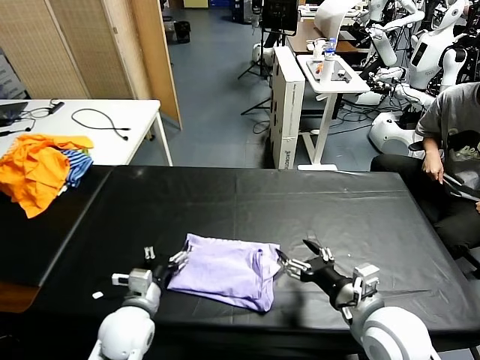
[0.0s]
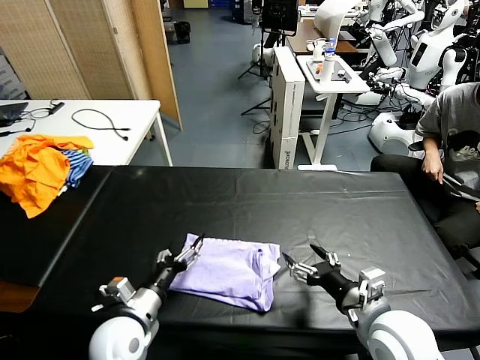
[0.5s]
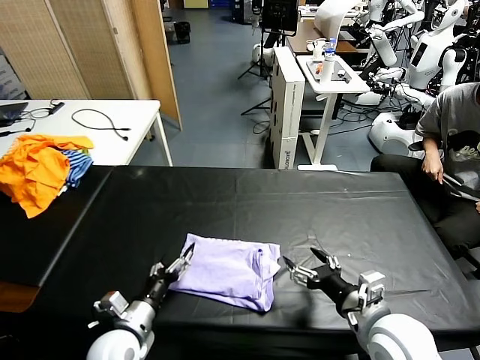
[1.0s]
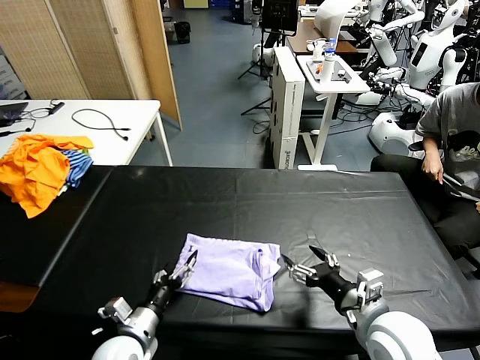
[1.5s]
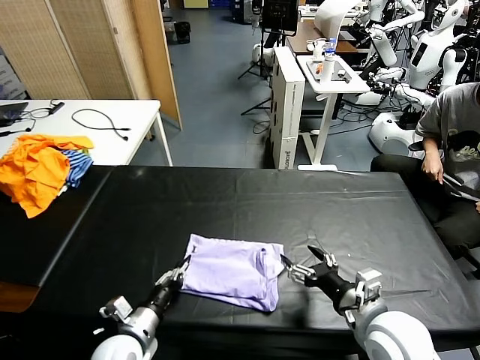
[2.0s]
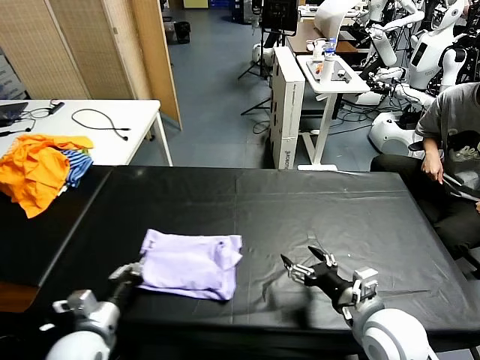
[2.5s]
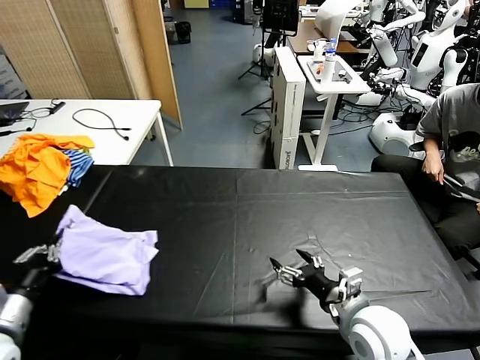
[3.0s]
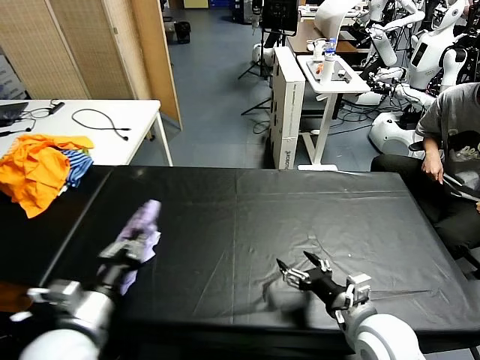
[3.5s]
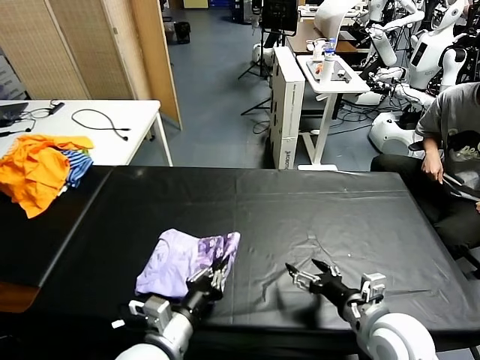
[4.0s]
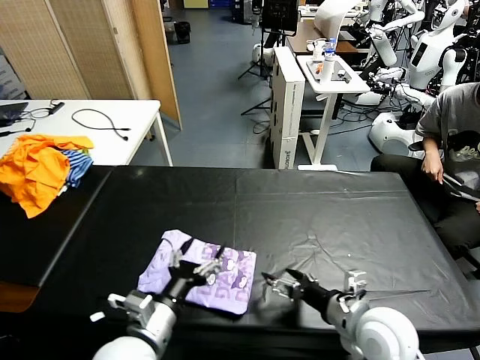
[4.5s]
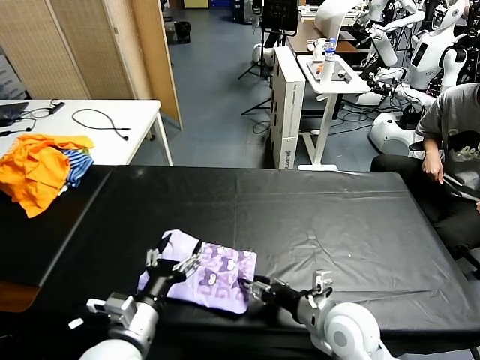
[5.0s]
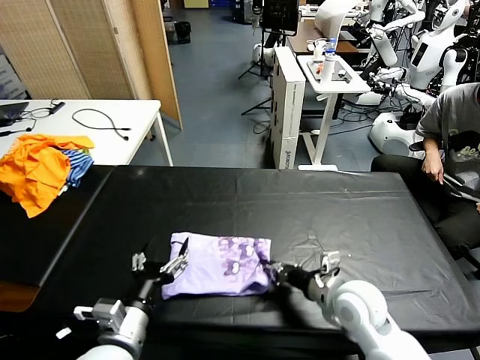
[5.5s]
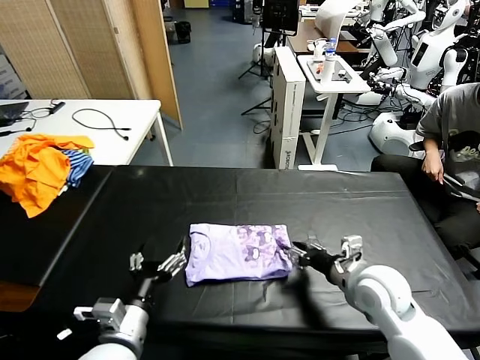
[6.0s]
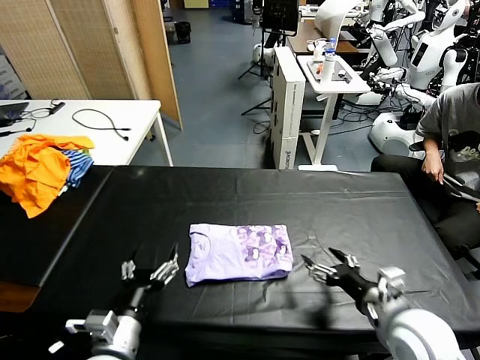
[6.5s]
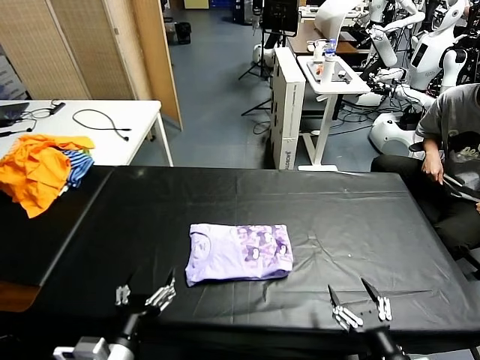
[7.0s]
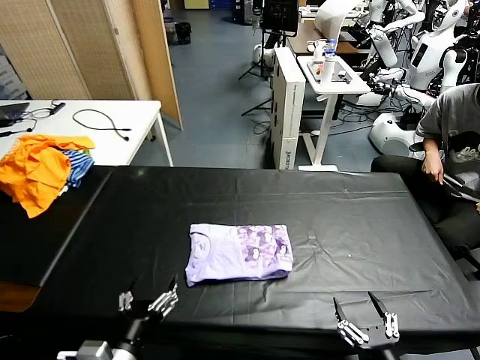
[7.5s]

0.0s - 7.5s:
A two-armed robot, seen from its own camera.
Task of the whole recording: fold and organize the clothes.
Step, 0.5s - 4.5s: Flip the folded clothes over with left gripper.
Step, 5.0s - 6.0s: Drag the clothes to the center of the table.
0.0s - 2.0s: The left gripper changes place by approximately 5 cm, and closes up.
2.0s - 4.0s: The left gripper goes roughly 15 cm upward and to the right.
4.0s - 5.5s: The left gripper goes approximately 5 cm to the left, and opens its fingers. The right gripper moves forward, about 5 cm, and closes its fingers.
5.5s - 7.5s: The right gripper goes roughly 20 cm backward, and opens its fingers; the left gripper goes approximately 5 cm backward.
